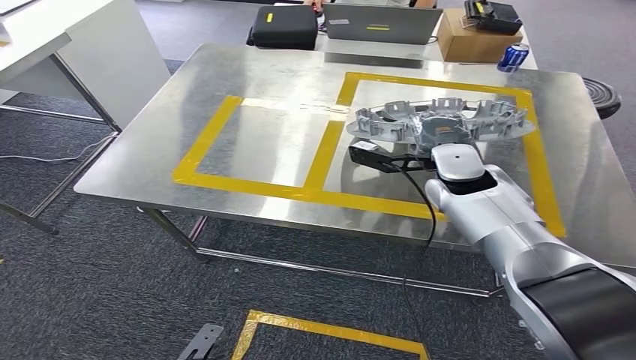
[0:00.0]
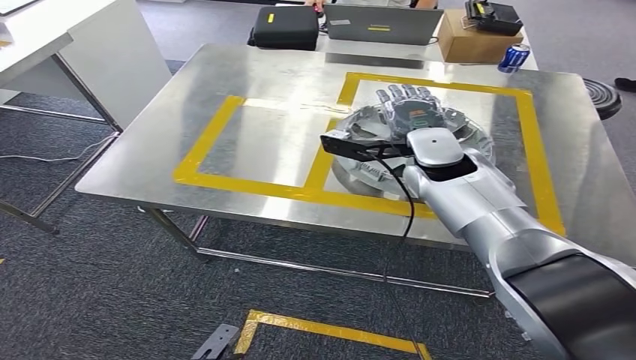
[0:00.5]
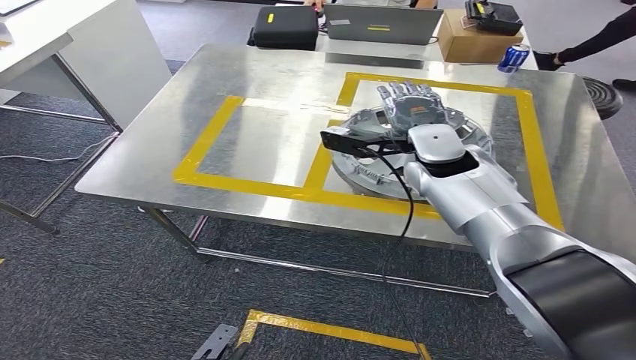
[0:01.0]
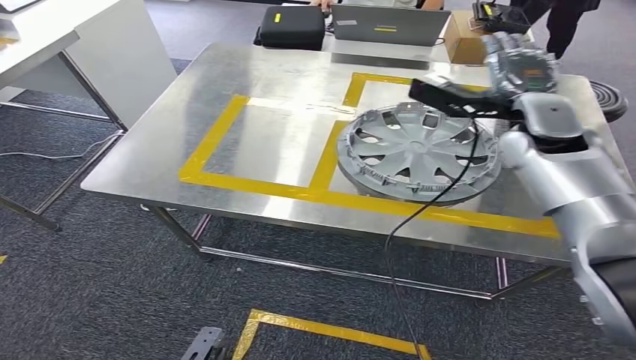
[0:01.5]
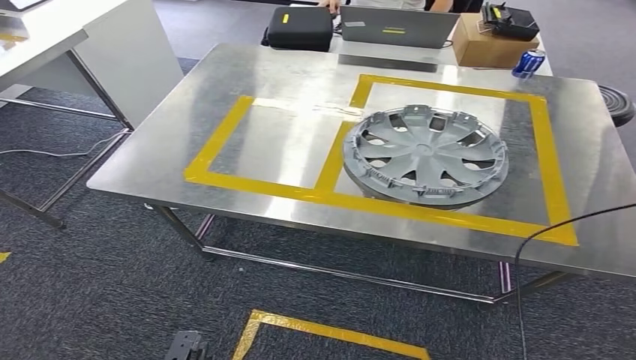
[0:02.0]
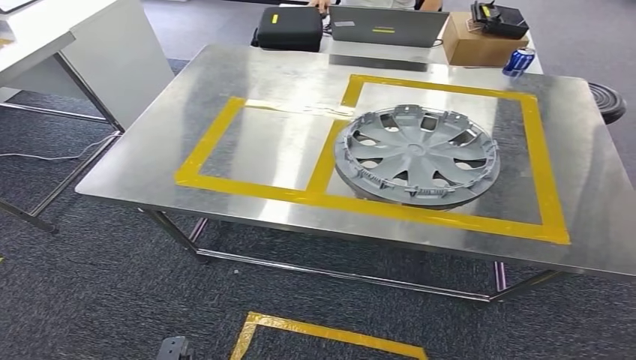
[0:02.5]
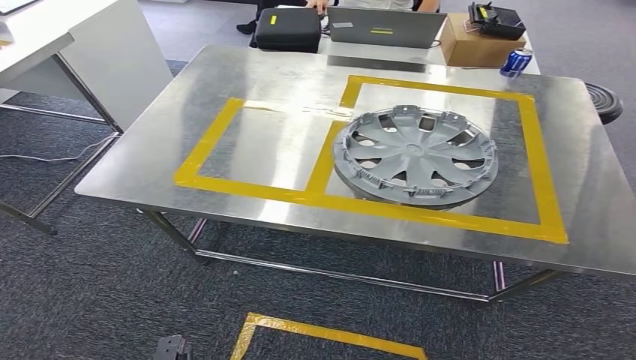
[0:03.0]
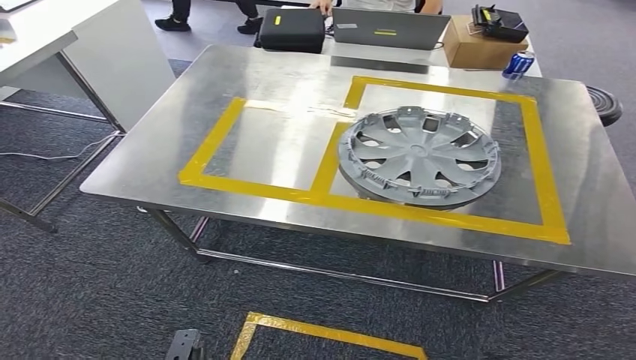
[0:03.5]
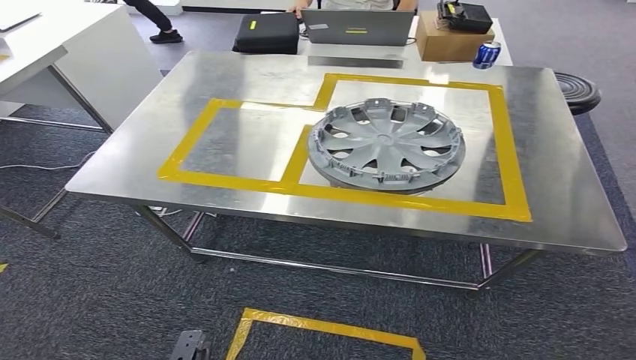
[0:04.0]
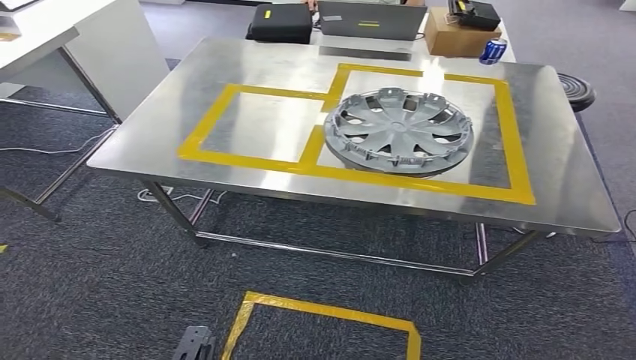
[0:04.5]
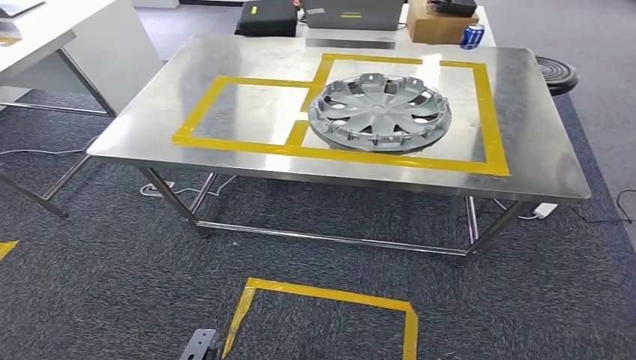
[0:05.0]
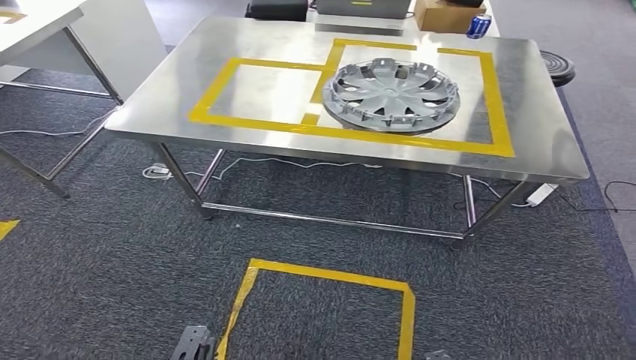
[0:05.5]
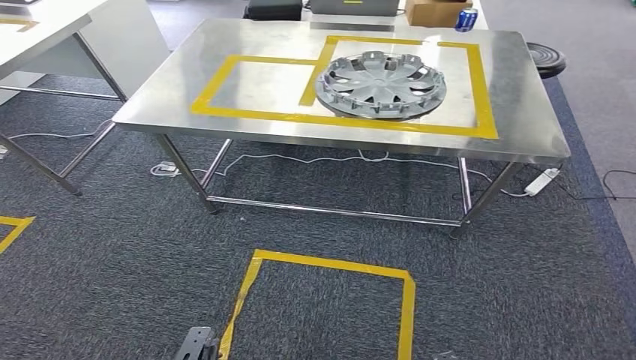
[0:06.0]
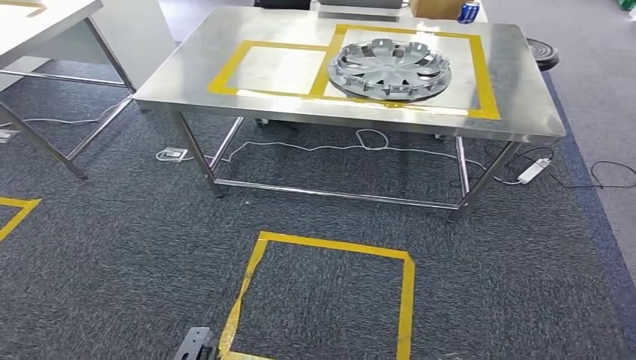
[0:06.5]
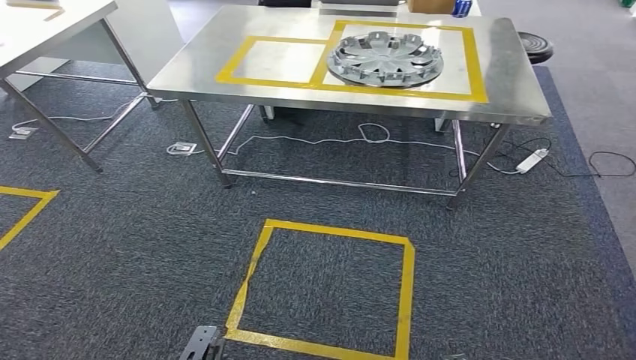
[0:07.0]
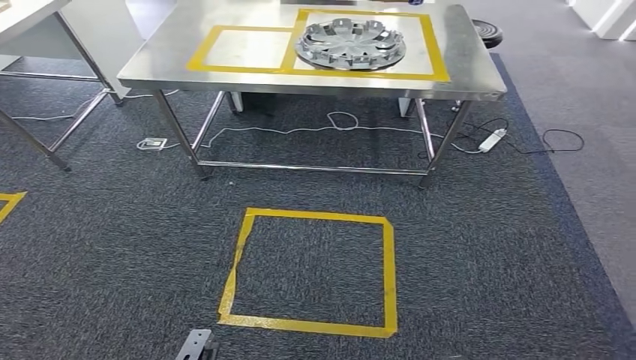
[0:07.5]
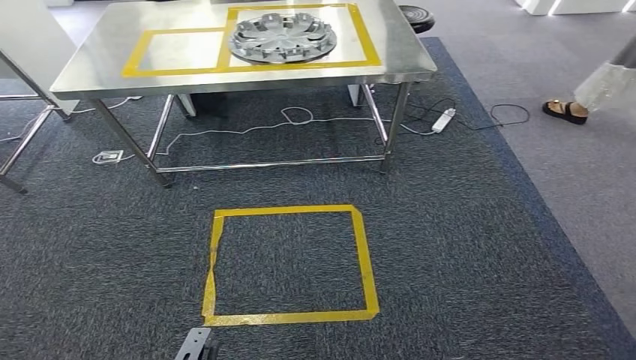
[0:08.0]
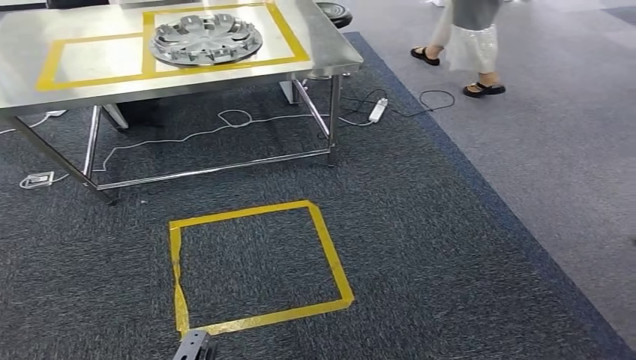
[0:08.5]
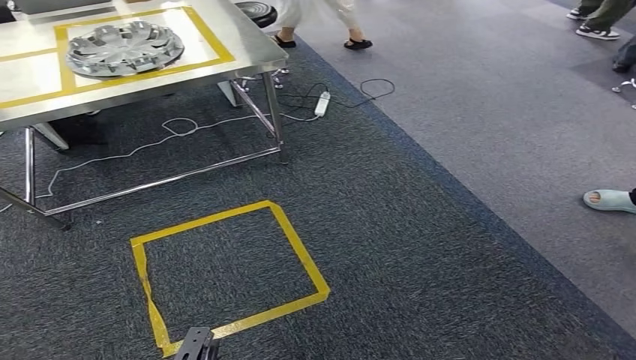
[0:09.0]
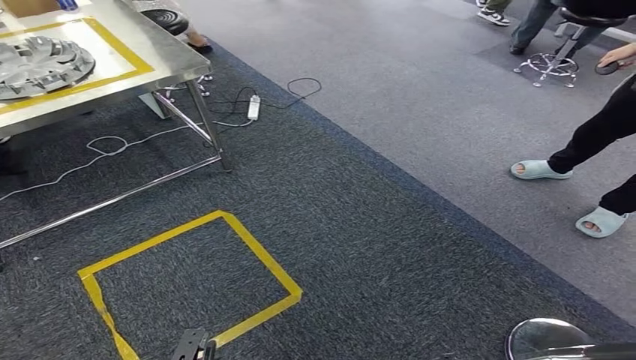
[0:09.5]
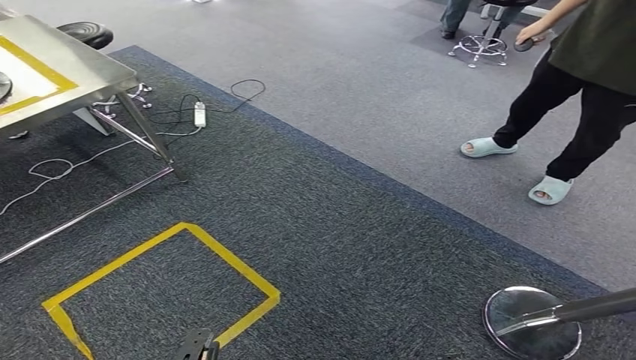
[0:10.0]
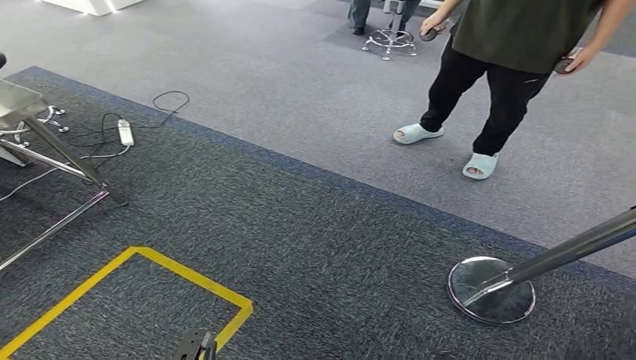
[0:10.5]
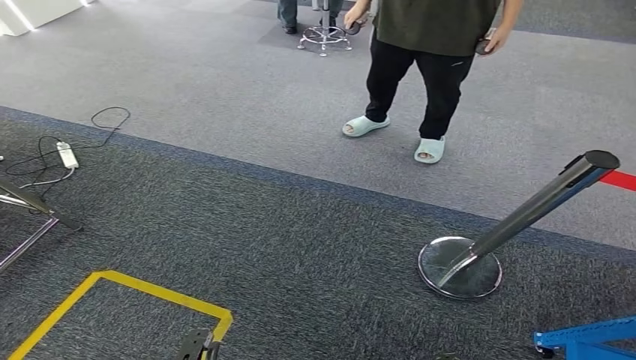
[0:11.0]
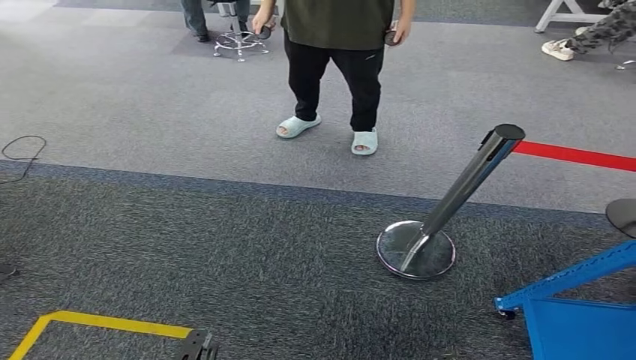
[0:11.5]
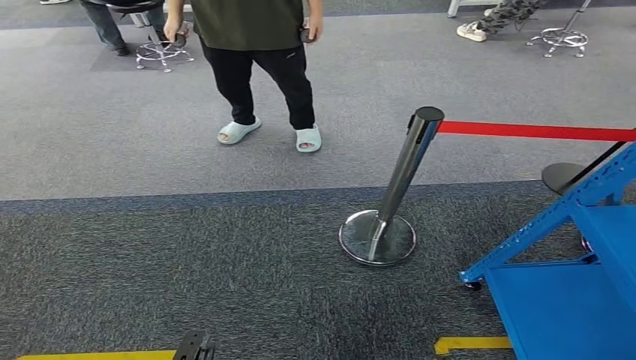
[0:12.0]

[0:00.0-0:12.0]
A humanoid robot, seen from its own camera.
Step, 0:00.0 to 0:02.5: Insert the small parts into the corresponding holes on the workbench.

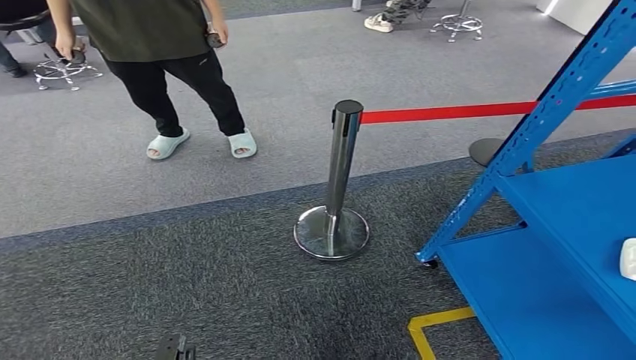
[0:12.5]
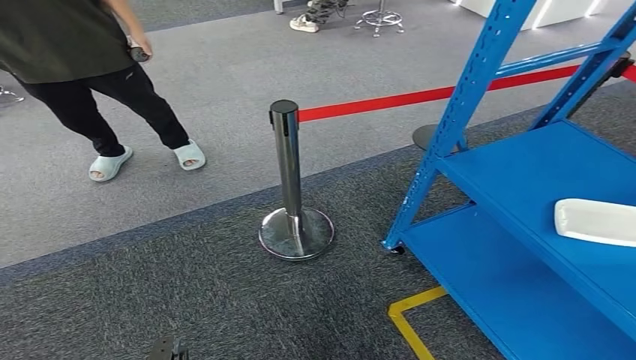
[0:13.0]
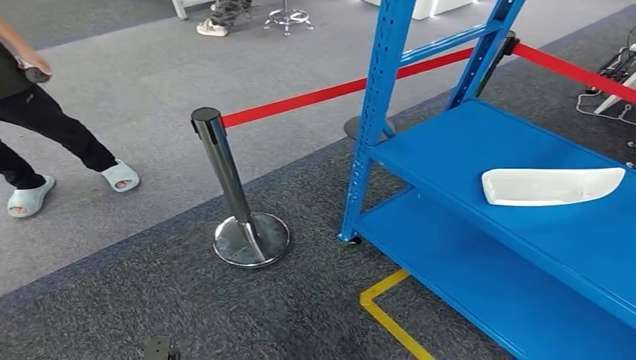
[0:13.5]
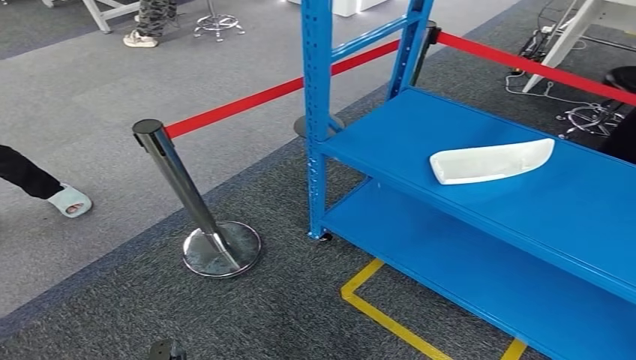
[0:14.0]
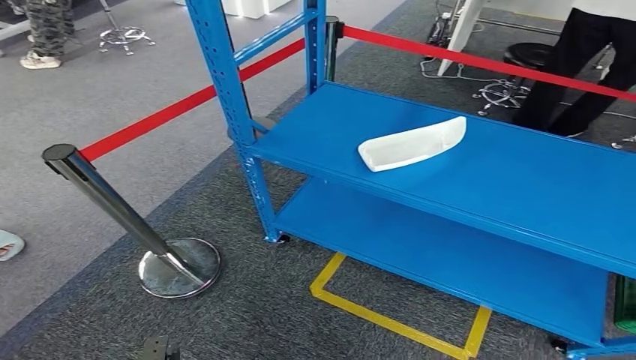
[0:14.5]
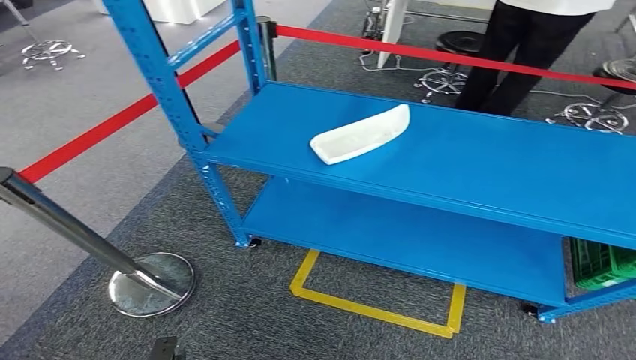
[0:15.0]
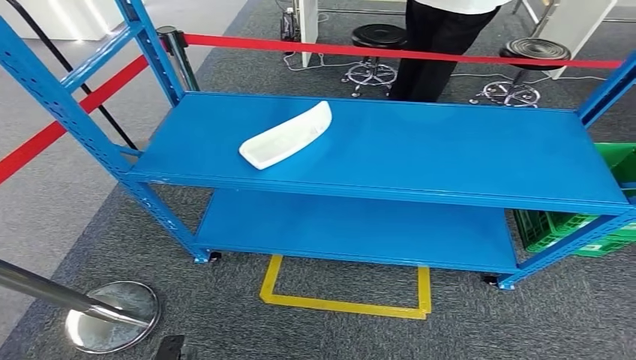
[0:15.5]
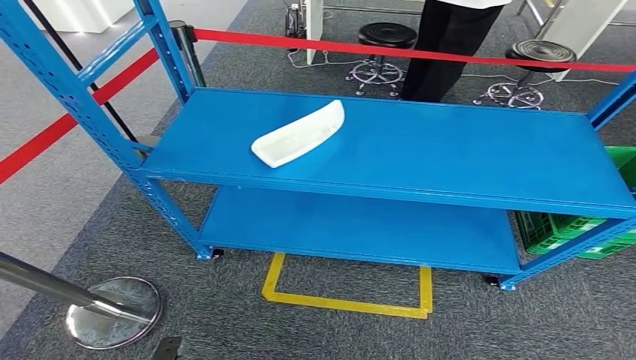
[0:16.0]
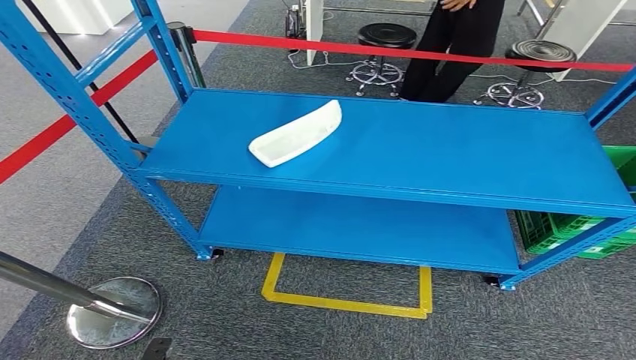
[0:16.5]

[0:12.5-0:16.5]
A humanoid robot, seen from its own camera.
Step, 0:12.5 to 0:16.5: Move to the initial position at the workbench.
